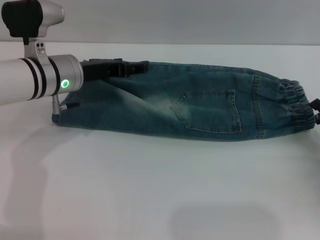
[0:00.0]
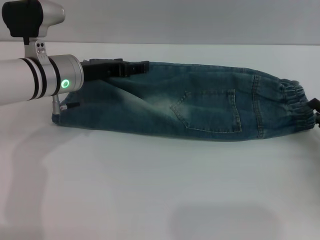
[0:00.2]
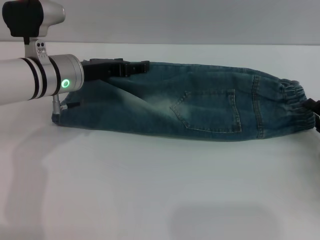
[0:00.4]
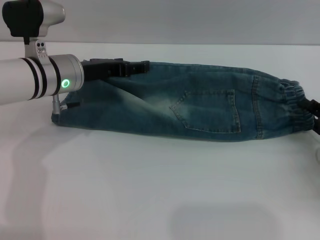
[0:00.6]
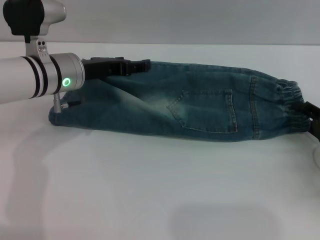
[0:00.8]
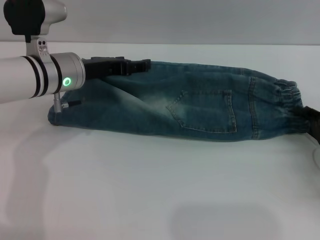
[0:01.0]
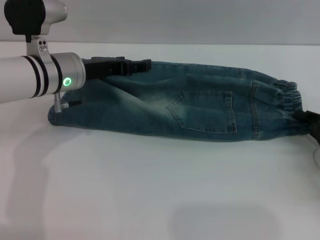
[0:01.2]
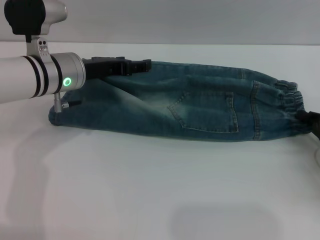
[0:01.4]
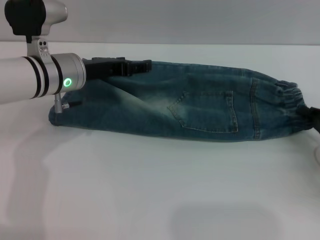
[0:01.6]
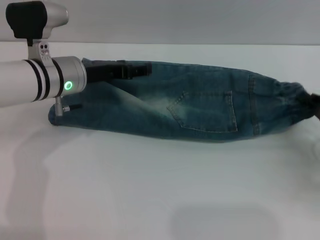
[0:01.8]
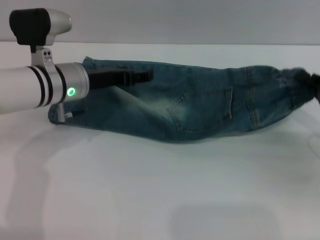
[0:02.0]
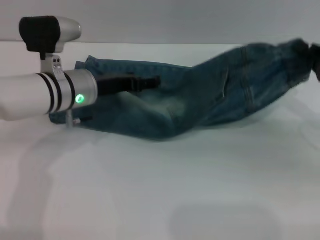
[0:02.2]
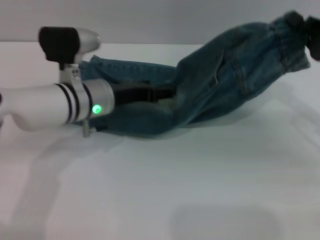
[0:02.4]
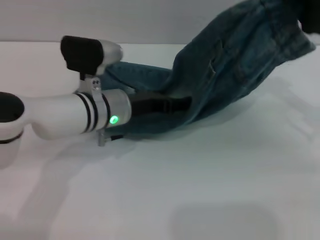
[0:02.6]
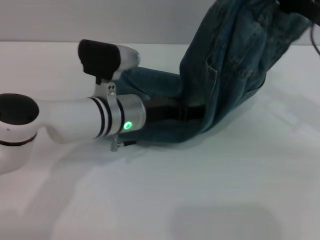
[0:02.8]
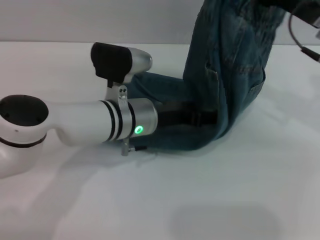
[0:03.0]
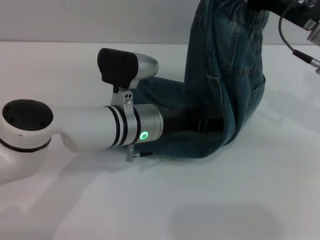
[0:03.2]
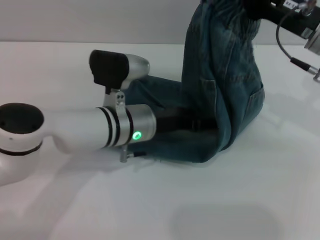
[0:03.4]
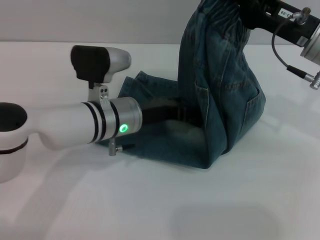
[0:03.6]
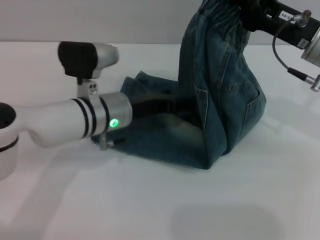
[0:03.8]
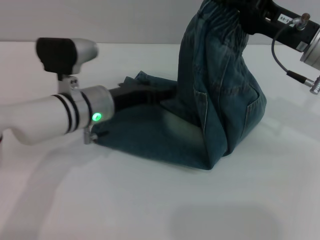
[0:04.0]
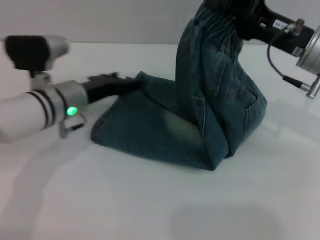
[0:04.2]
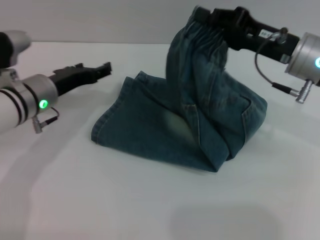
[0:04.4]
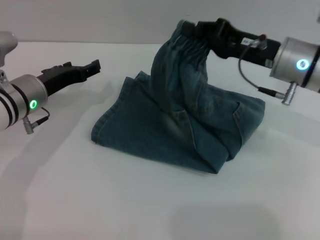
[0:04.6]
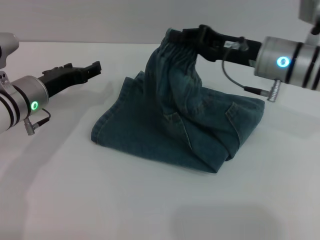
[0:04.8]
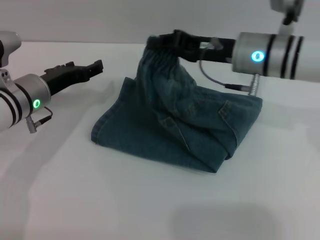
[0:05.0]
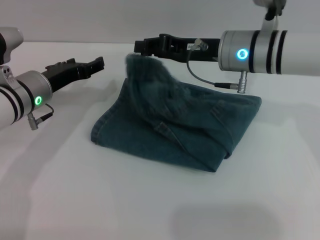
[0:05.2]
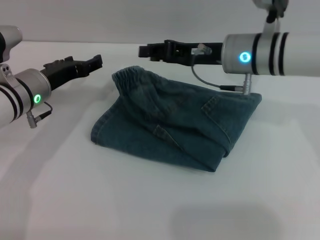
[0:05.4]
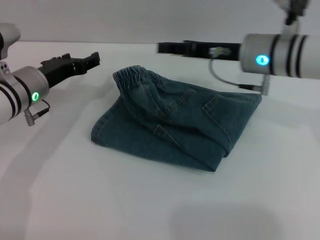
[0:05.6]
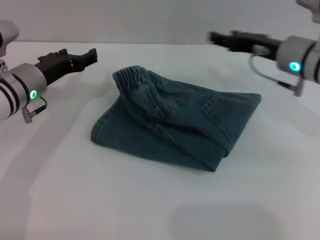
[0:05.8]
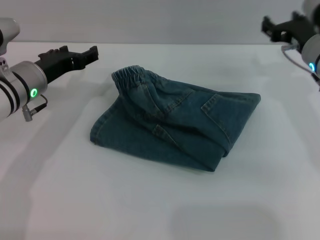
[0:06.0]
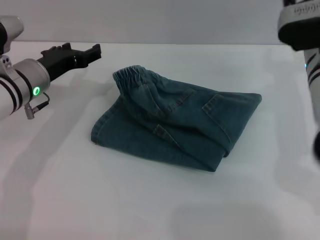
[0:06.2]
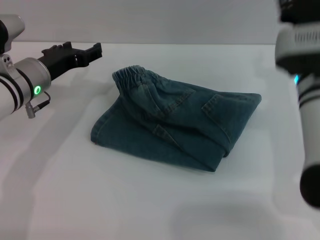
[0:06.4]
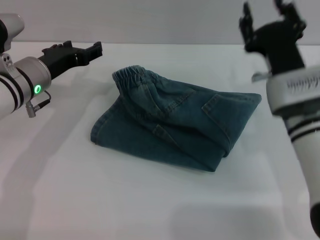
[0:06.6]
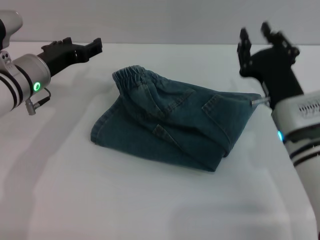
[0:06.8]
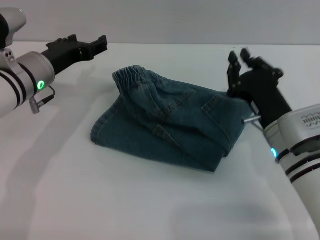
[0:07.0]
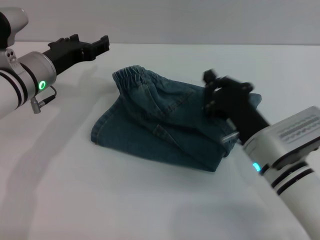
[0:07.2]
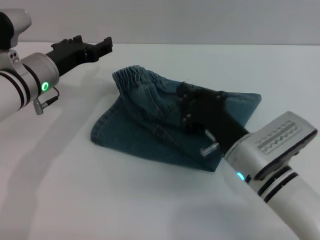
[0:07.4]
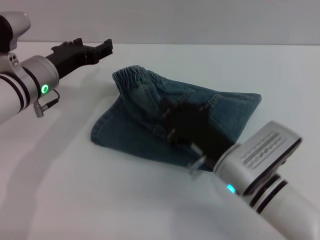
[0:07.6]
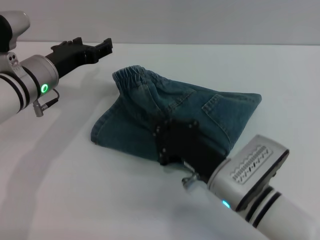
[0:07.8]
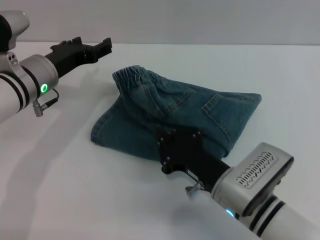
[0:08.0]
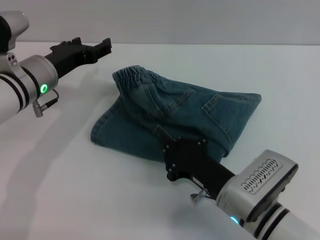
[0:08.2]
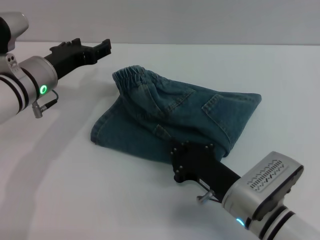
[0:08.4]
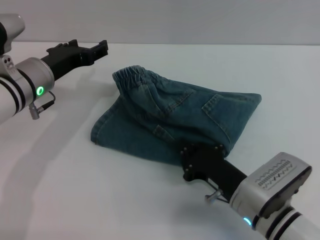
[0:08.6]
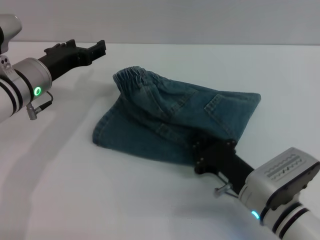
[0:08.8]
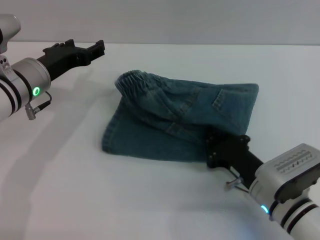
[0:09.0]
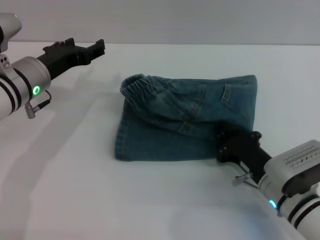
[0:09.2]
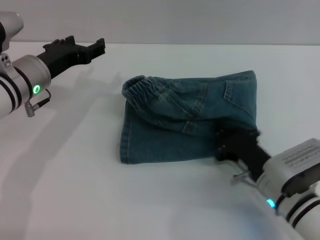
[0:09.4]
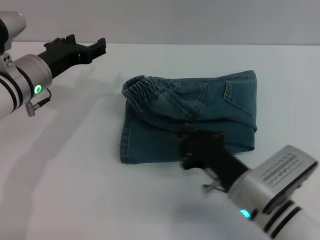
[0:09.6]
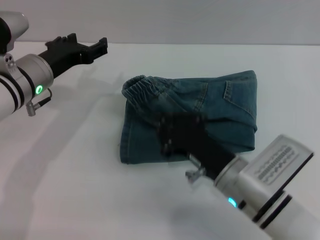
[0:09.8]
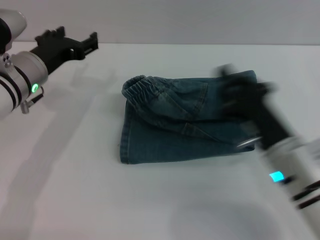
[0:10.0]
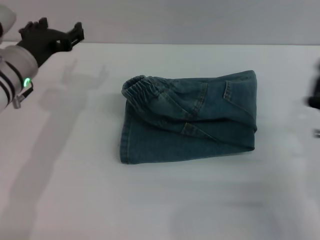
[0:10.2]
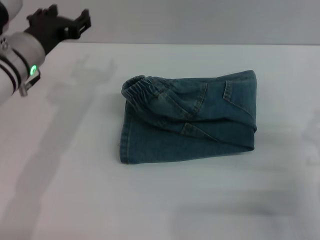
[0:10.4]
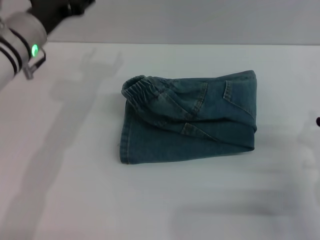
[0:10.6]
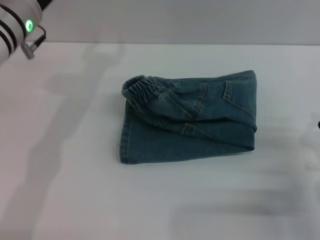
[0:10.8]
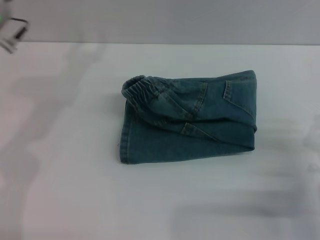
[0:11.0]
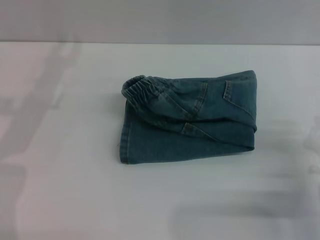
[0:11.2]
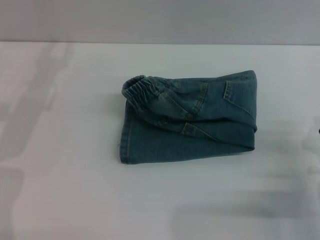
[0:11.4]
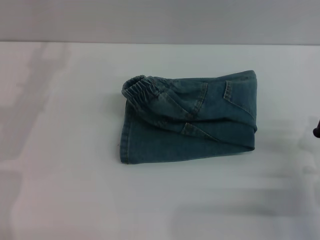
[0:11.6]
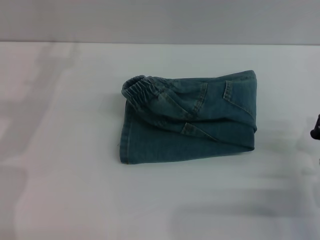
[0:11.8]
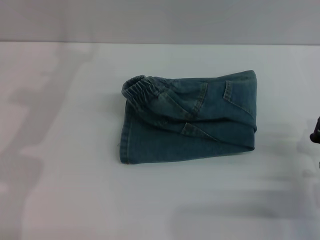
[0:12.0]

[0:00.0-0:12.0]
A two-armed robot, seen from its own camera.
Step, 0:00.0 to 0:06.4: Fold the pants from right to left with the right gripper.
Step, 0:06.6 to 0:09.6: Place the folded trousers onto the center area with the right grippers.
0:00.0 to 0:01.6: The right gripper closes.
0:01.6 to 0:03.0: The left gripper is displaced to the right and backward by roughly 10 cm; the right gripper shifts about 20 cm upward, to the left and forward.
0:03.0 to 0:04.4: The left gripper is displaced to the left by about 15 cm.
0:04.4 to 0:06.0: The right gripper goes to the left and returns, roughly 10 cm each way, and opens its fingers.
0:06.0 to 0:07.6: The right gripper travels backward, to the left and downward by some 20 cm, and closes up.
0:07.6 to 0:09.0: The right gripper shifts approximately 5 cm to the right.
0:09.0 to 0:10.4: The right gripper moves to the right, about 10 cm.
0:10.4 to 0:12.0: The left gripper travels upward by approximately 5 cm.

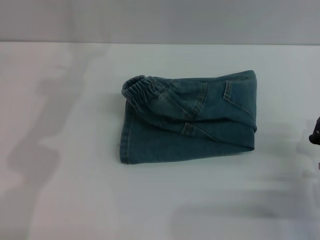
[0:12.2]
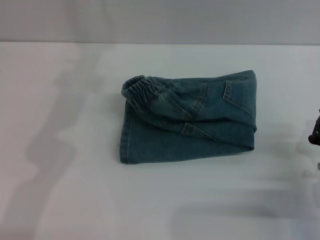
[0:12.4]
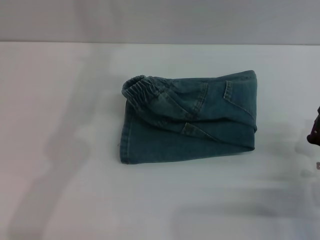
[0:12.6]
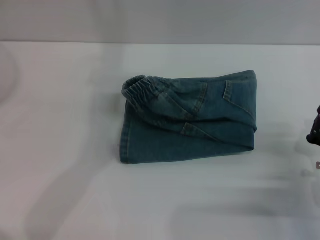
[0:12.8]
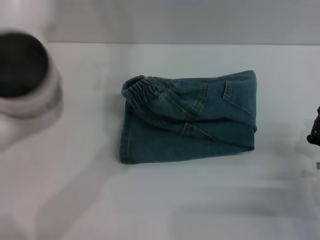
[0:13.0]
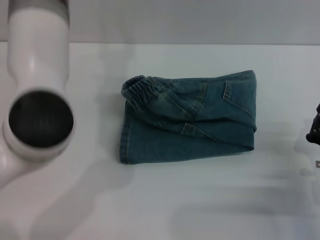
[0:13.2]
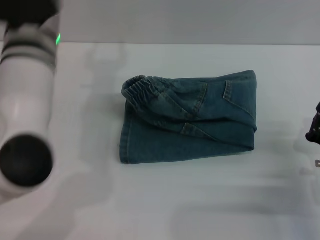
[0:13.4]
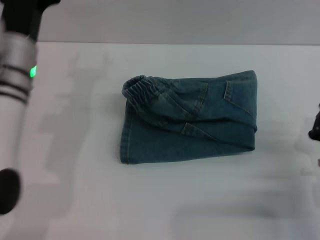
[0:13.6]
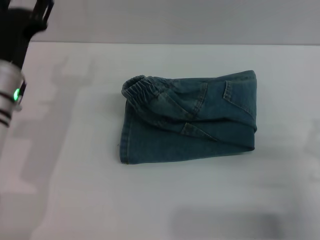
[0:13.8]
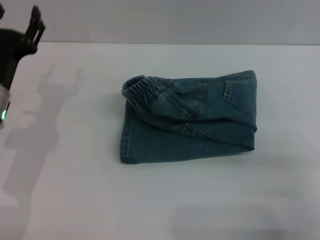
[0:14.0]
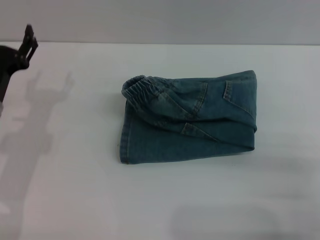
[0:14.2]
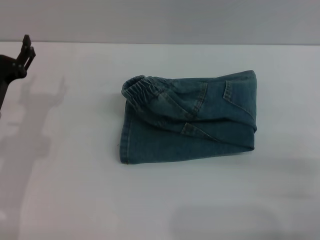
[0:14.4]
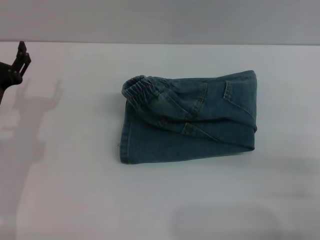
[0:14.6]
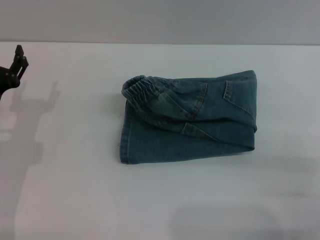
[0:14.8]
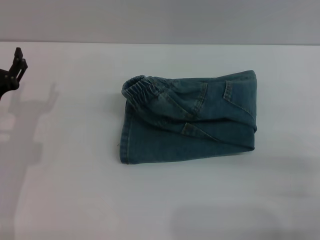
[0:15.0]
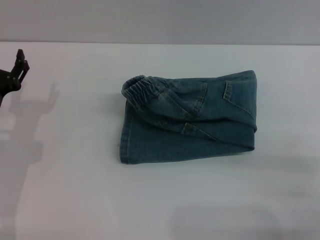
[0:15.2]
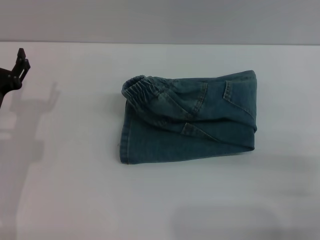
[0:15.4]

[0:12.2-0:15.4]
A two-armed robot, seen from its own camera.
0:12.2 to 0:13.8: The left gripper shifts about 15 cm downward.
0:13.8 to 0:15.4: The right gripper opens. The left gripper is displaced downward by some 5 cm.

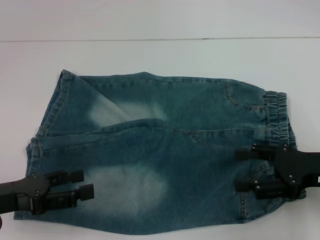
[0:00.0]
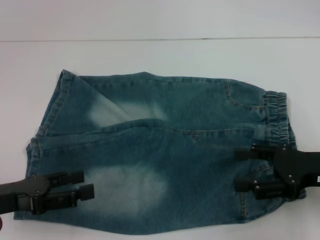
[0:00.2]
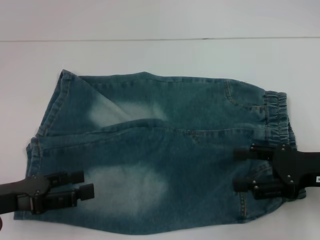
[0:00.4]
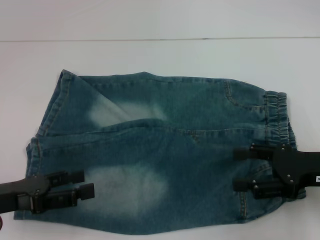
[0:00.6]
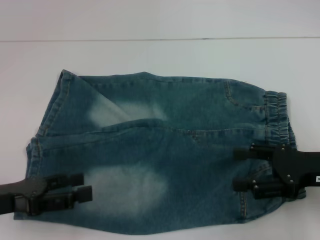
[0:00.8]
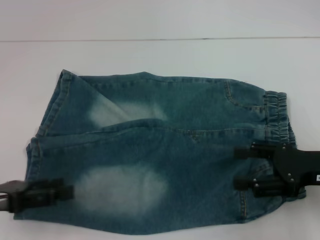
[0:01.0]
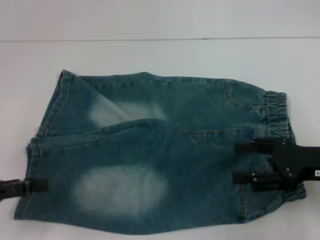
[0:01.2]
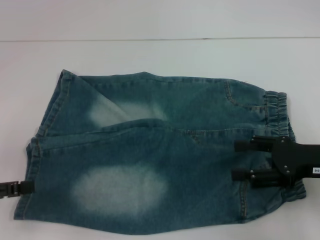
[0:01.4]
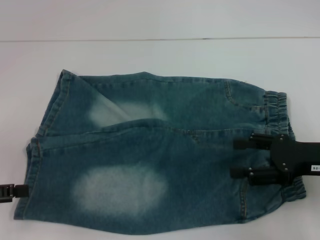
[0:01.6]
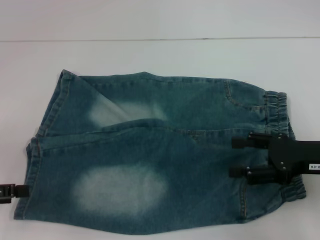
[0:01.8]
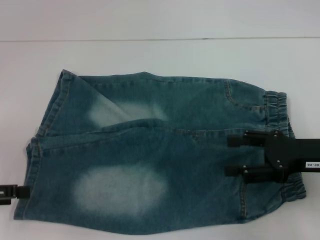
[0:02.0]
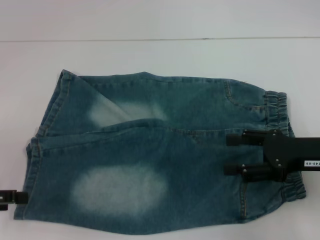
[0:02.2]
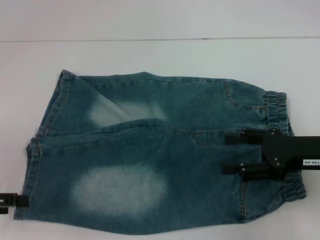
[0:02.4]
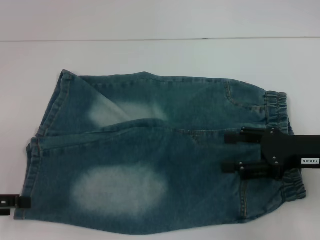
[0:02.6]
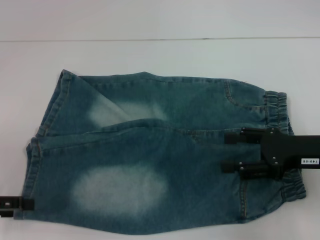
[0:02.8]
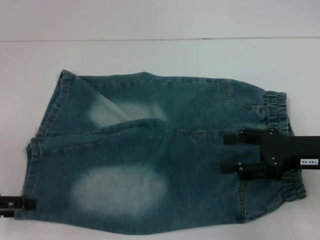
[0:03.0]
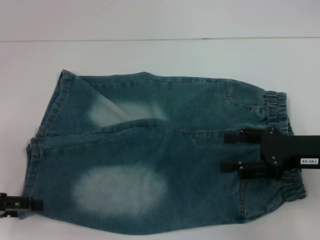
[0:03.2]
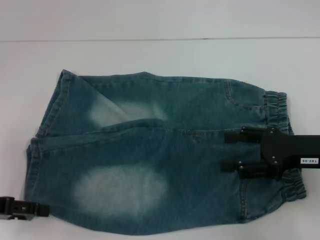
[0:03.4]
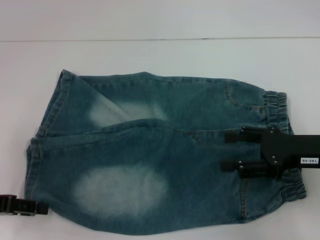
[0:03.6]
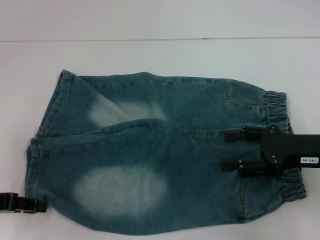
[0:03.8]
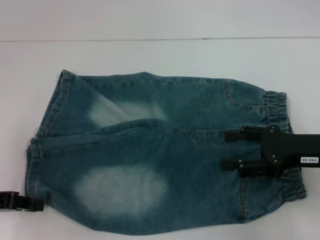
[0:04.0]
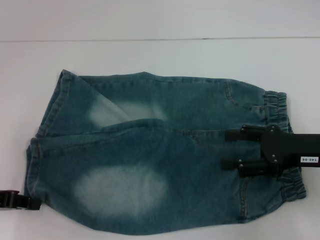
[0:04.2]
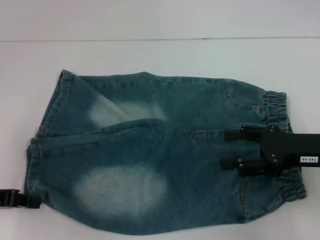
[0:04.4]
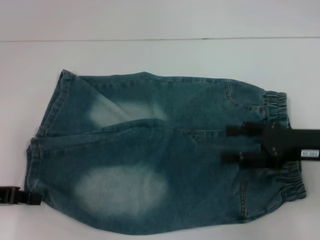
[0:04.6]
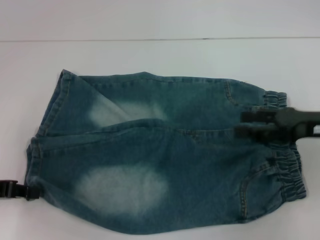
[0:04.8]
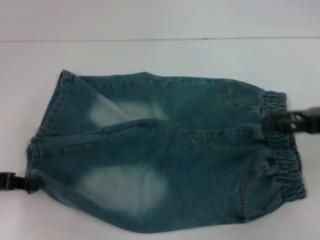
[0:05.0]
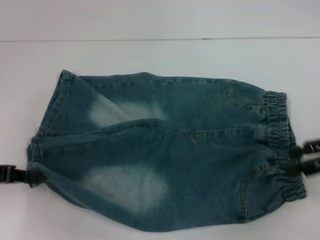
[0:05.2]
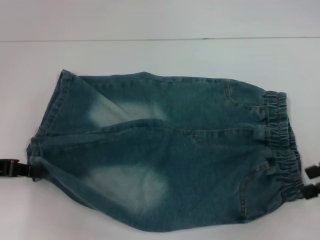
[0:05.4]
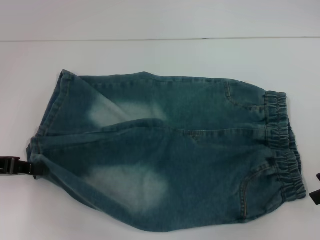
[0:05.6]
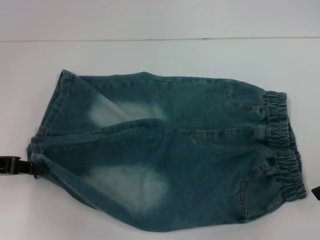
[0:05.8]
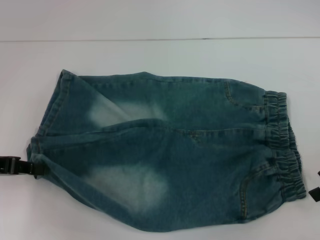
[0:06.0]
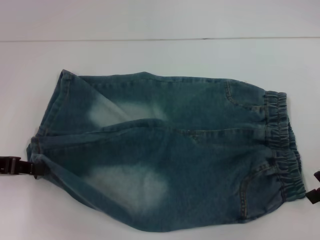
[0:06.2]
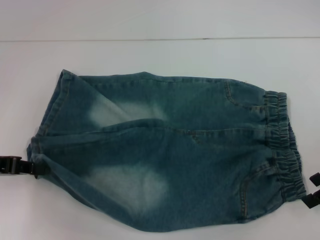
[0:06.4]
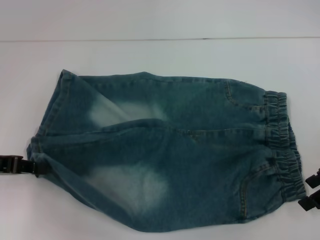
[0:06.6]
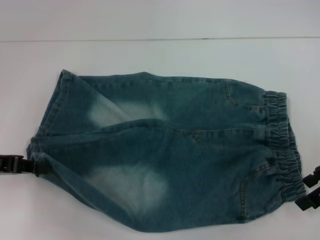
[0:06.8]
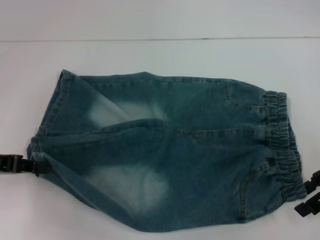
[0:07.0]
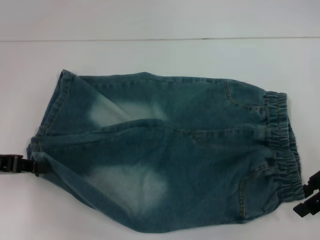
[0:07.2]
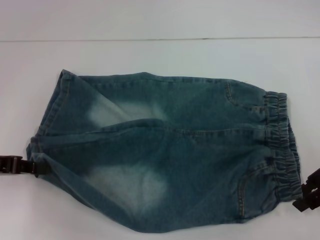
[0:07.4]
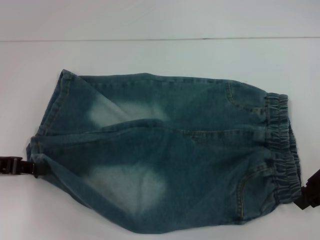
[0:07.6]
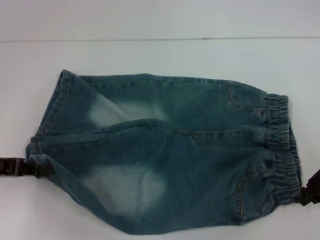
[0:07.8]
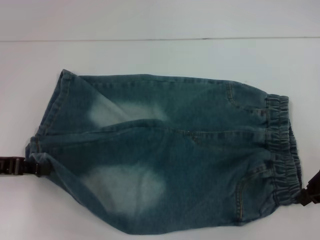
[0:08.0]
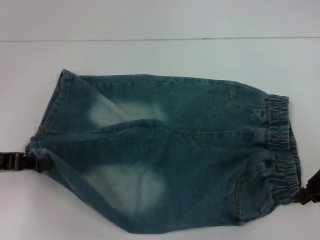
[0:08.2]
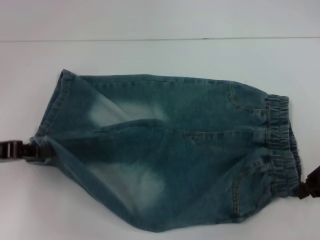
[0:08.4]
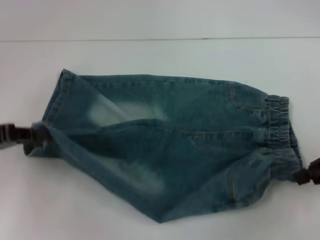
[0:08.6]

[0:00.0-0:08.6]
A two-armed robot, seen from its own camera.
Step, 0:00.0 to 0:04.2: Grab the lower left pant leg with your left hand.
Step, 0:04.6 to 0:08.0: Hold the lower right waistband with your right hand.
0:00.0 to 0:01.4: The left gripper heads to the left, covering approximately 5 cm.
0:01.4 to 0:02.8: The grippers move only a little.
0:02.8 to 0:04.4: The left gripper closes.
0:04.4 to 0:05.8: The right gripper is displaced to the right by about 10 cm.
0:05.8 to 0:07.2: The right gripper ends up approximately 5 cm from where it was.
0:07.2 to 0:08.6: The right gripper closes.
